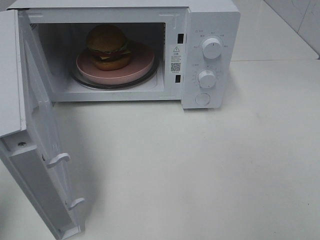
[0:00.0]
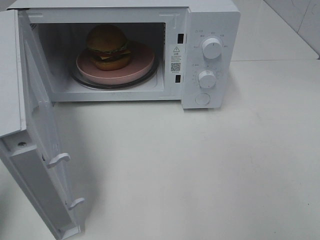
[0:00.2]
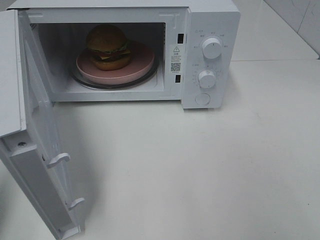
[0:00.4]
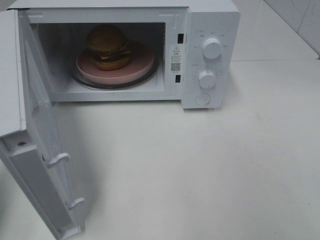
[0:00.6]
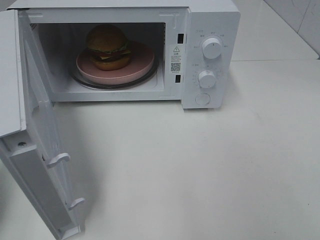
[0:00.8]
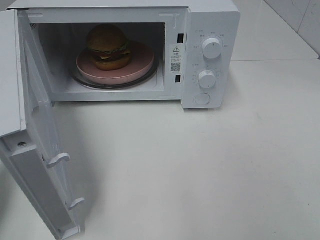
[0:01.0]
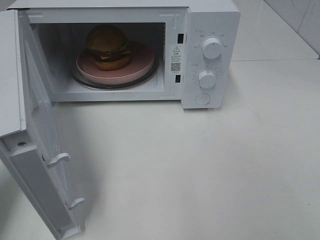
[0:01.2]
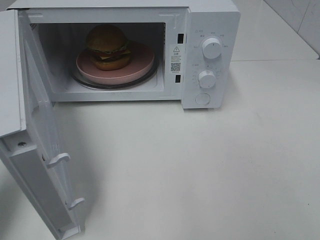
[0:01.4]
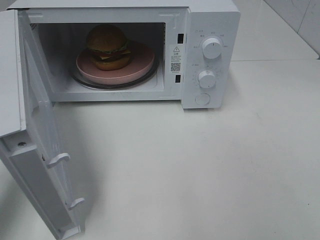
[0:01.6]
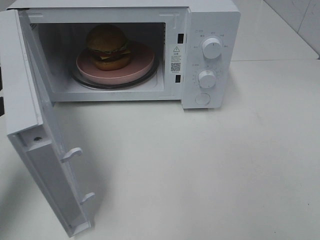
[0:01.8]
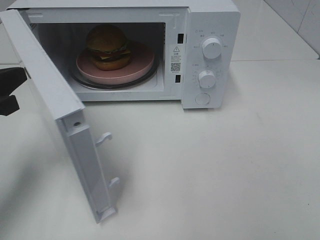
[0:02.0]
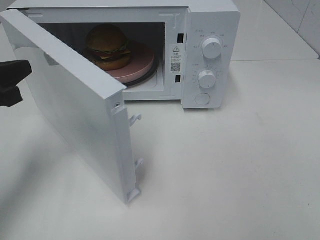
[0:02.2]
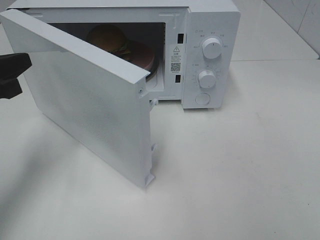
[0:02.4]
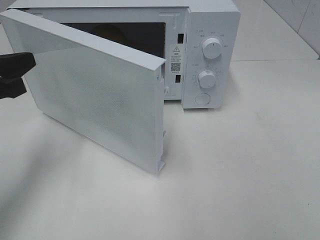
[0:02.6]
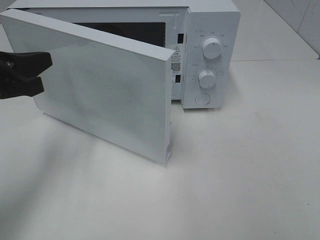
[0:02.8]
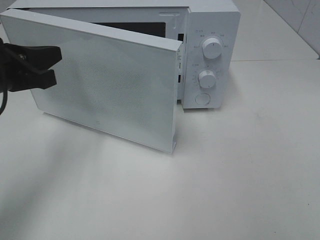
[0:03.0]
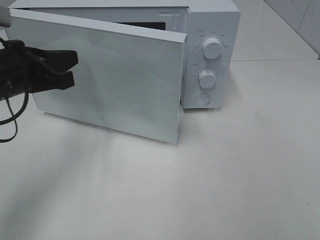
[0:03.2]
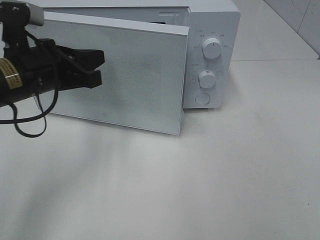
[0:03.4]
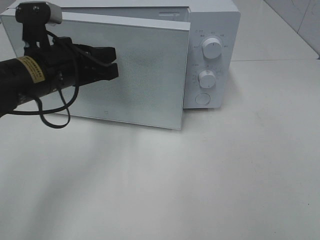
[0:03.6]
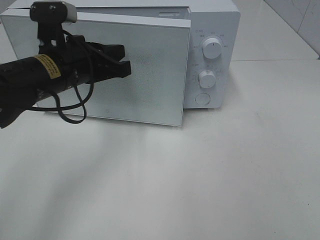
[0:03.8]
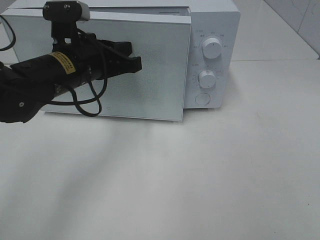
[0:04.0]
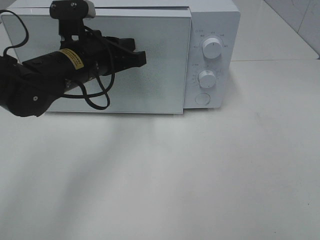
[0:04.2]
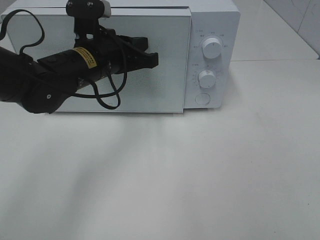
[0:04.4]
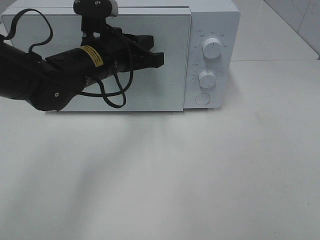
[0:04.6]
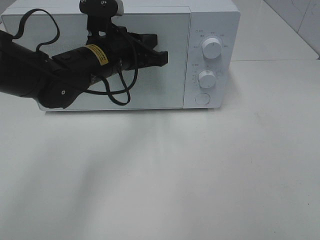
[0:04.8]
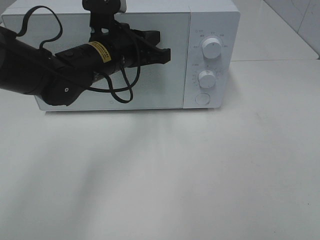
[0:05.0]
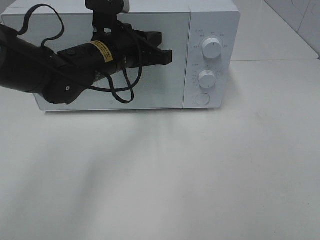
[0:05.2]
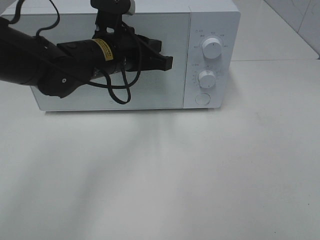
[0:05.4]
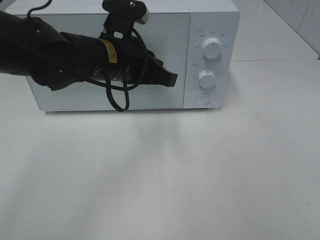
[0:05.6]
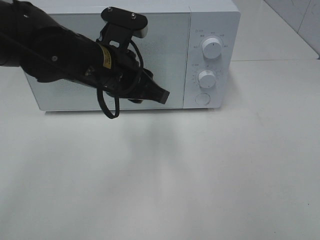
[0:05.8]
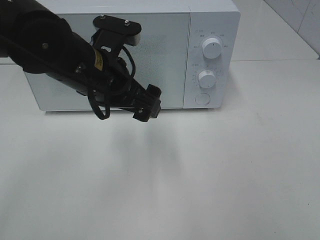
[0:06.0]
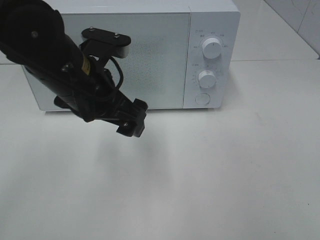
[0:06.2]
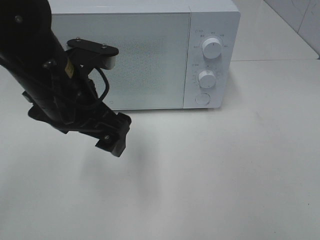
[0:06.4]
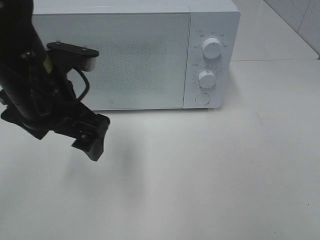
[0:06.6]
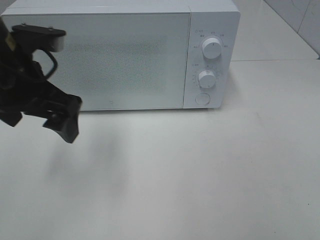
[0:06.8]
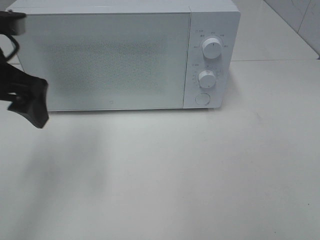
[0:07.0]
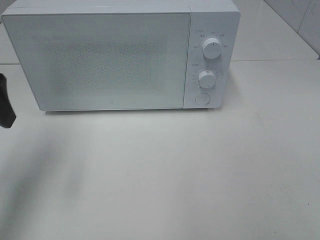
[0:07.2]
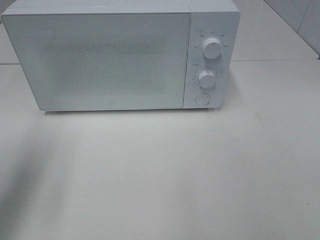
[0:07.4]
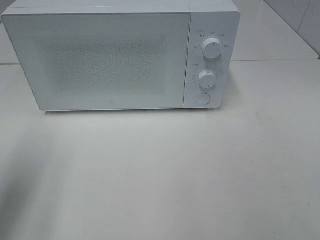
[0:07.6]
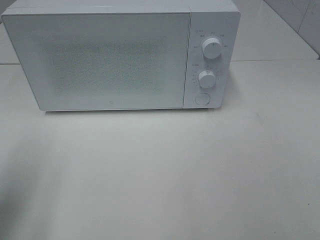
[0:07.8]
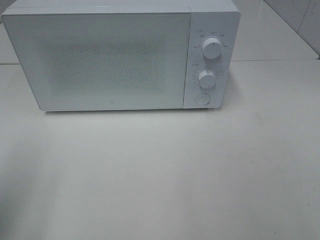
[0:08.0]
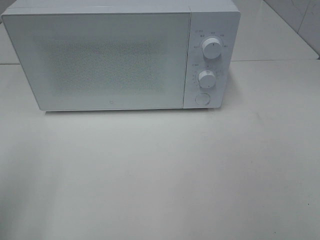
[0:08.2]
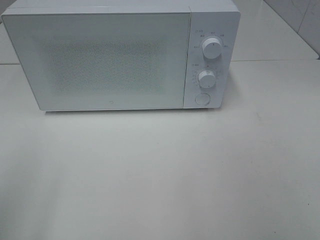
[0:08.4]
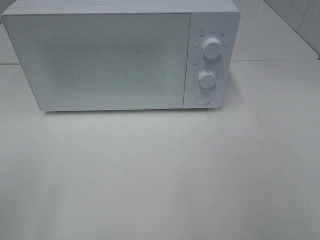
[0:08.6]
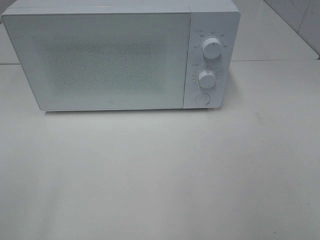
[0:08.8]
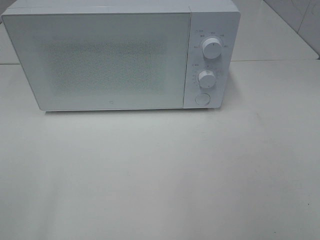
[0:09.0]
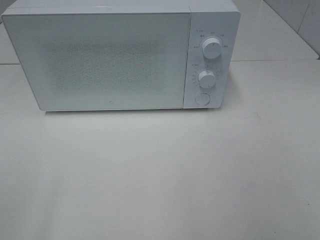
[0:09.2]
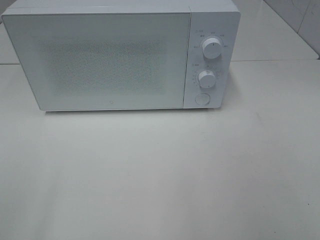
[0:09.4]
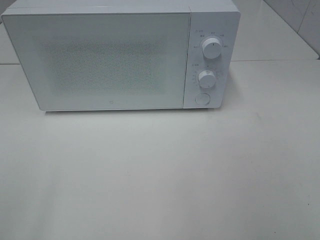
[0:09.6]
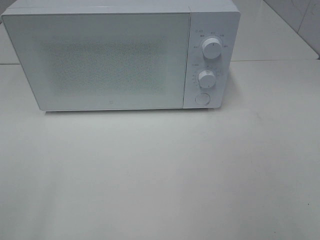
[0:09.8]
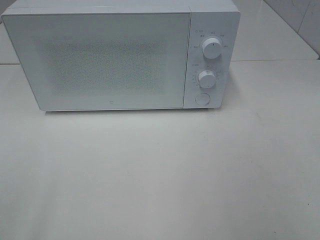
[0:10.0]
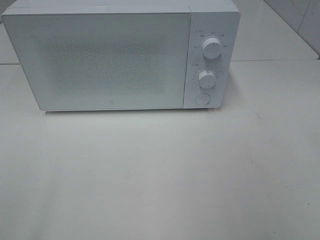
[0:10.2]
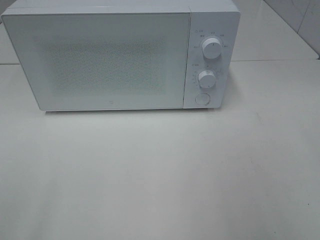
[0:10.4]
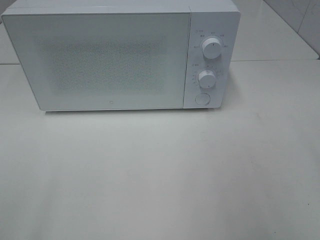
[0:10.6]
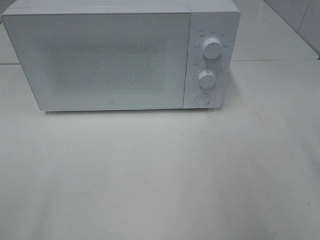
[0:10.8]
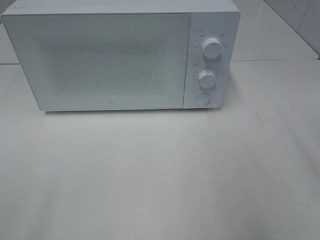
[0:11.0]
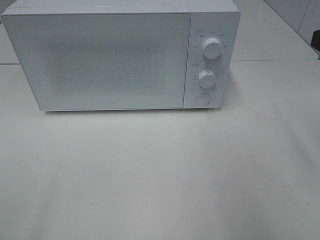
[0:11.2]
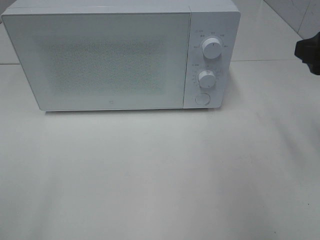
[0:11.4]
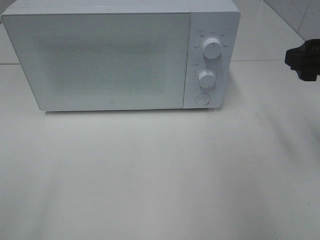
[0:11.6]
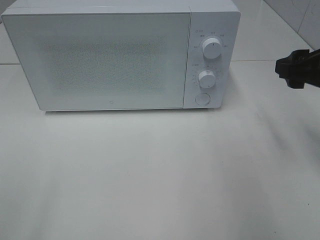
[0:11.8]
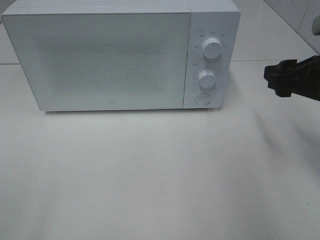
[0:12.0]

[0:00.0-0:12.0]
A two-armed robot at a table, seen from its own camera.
Task of the whole recording: Heat the burger.
Step, 0:00.0 to 0:05.6: Left hand: close the microwave door.
0:00.0 to 0:01.6: The left gripper moves forward and downward, about 15 cm.
0:01.6 to 0:03.0: The left gripper is displaced to the right and forward by approximately 10 cm.
0:03.0 to 0:04.4: The left gripper travels to the right and forward by about 15 cm.
0:04.4 to 0:06.0: The left gripper travels backward by roughly 5 cm, and opens up.
0:06.0 to 0:07.6: The left gripper is displaced to the left and backward by roughly 25 cm.
0:07.6 to 0:09.0: The left gripper heads backward, covering about 15 cm.
0:10.4 to 0:12.0: The right gripper moves forward and downward, about 20 cm.

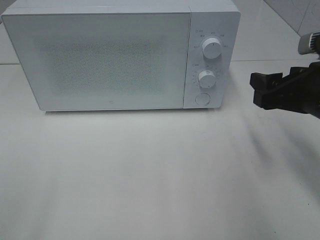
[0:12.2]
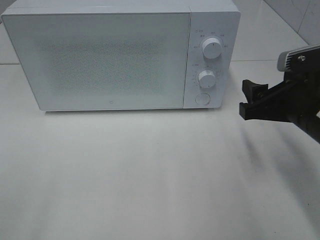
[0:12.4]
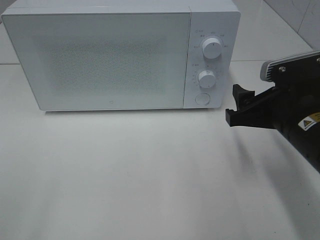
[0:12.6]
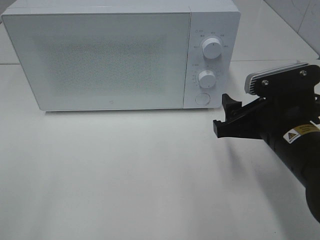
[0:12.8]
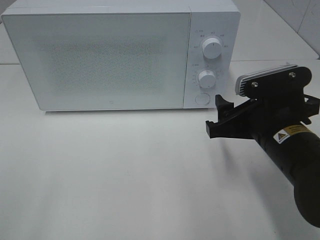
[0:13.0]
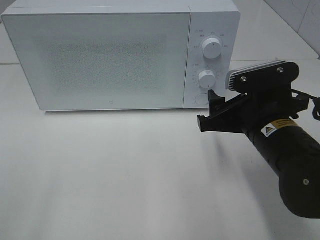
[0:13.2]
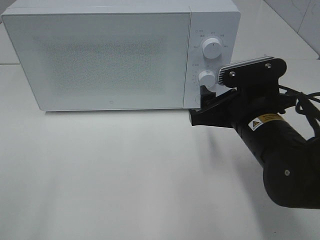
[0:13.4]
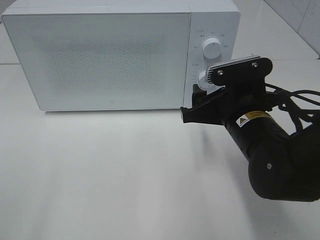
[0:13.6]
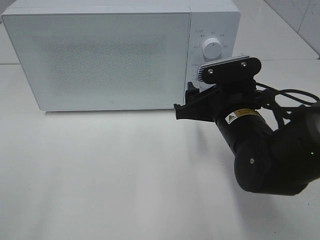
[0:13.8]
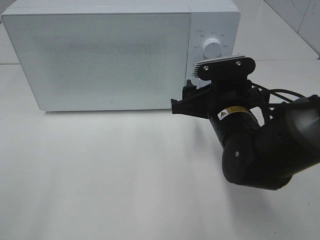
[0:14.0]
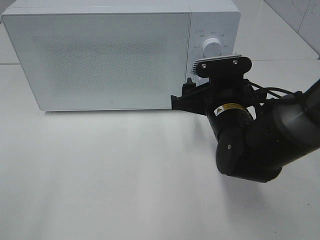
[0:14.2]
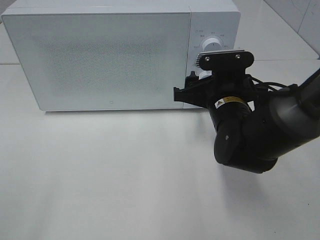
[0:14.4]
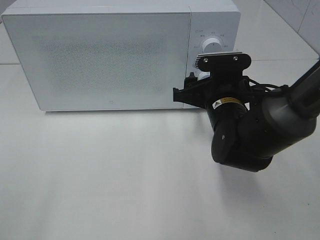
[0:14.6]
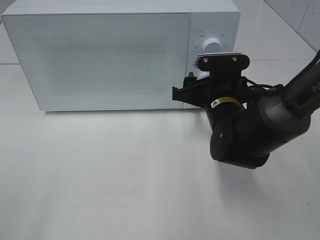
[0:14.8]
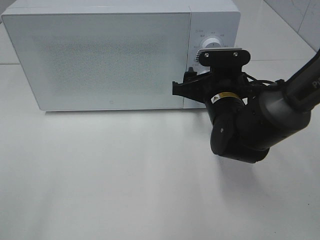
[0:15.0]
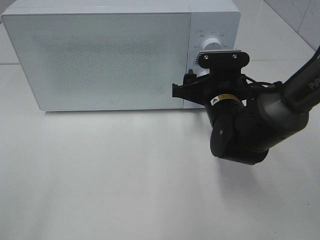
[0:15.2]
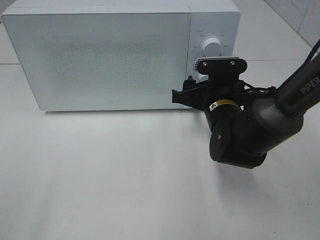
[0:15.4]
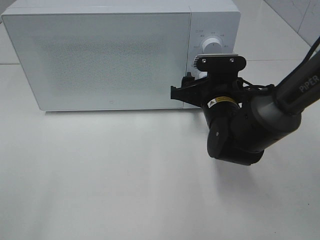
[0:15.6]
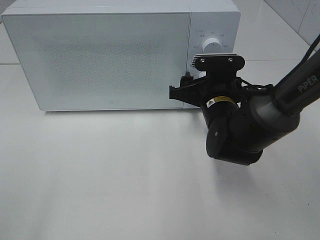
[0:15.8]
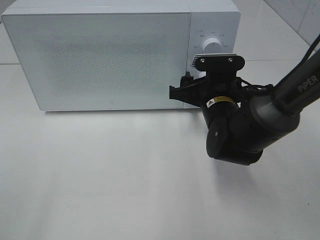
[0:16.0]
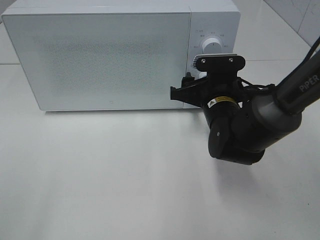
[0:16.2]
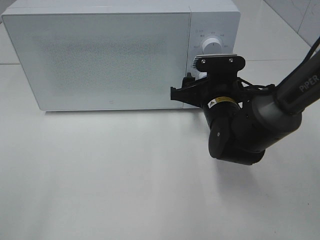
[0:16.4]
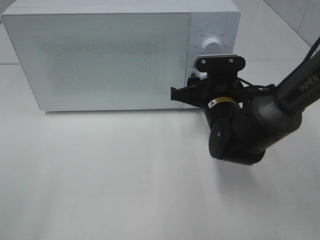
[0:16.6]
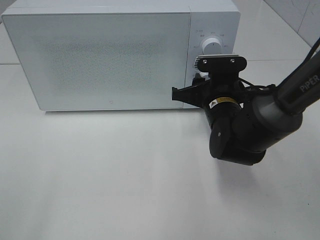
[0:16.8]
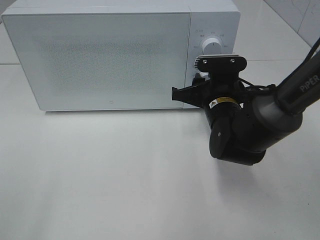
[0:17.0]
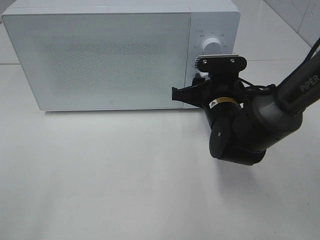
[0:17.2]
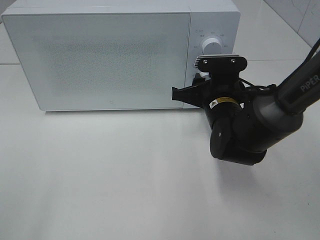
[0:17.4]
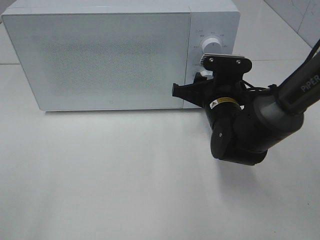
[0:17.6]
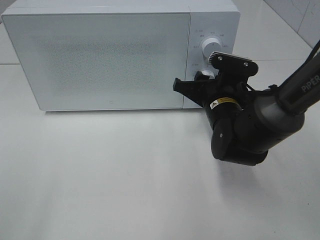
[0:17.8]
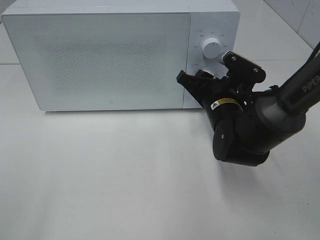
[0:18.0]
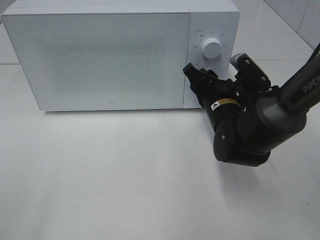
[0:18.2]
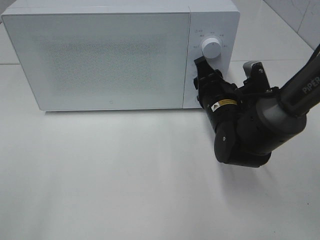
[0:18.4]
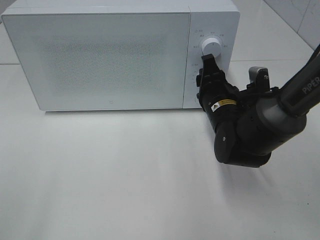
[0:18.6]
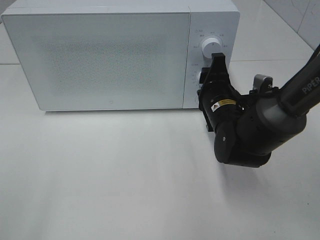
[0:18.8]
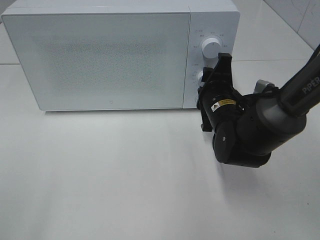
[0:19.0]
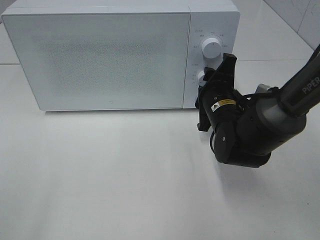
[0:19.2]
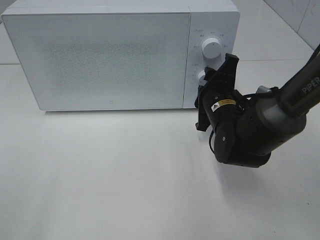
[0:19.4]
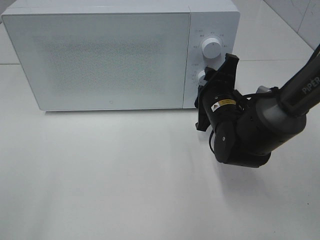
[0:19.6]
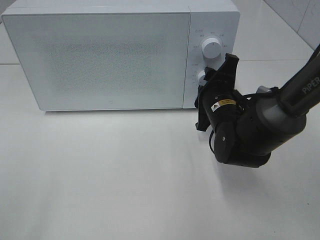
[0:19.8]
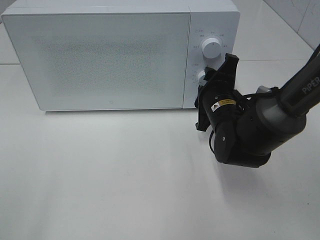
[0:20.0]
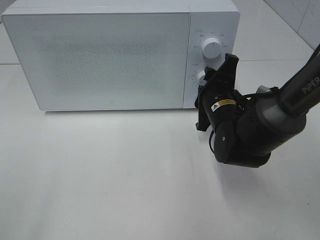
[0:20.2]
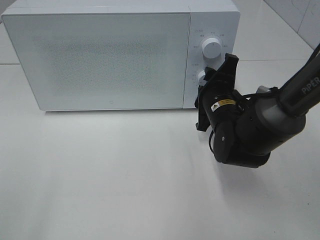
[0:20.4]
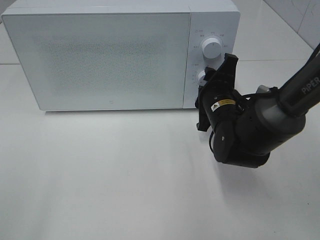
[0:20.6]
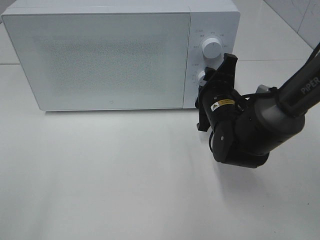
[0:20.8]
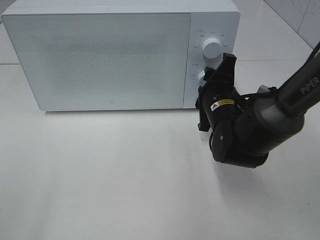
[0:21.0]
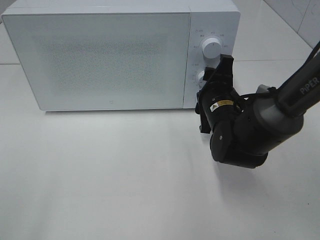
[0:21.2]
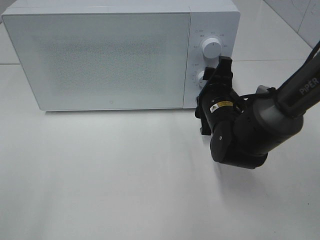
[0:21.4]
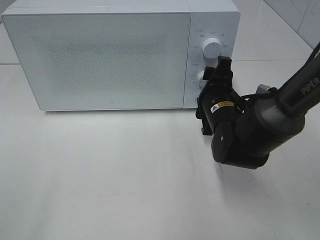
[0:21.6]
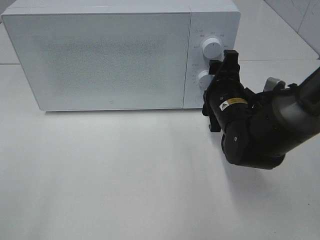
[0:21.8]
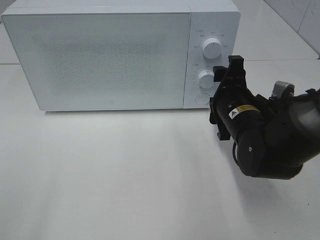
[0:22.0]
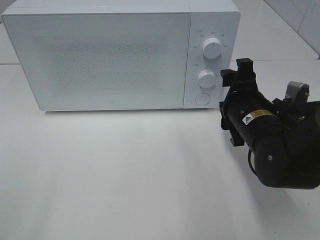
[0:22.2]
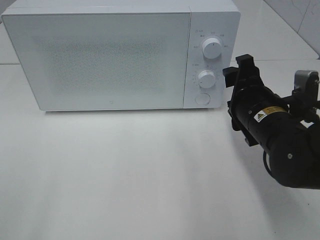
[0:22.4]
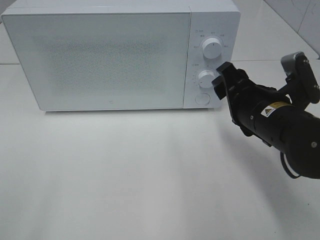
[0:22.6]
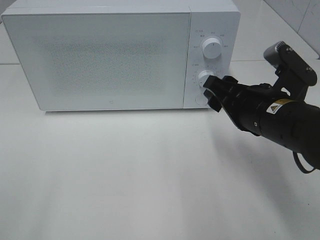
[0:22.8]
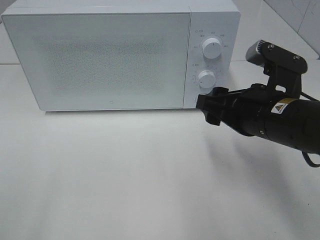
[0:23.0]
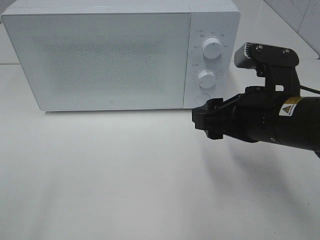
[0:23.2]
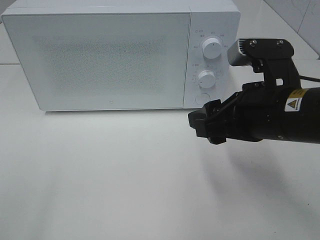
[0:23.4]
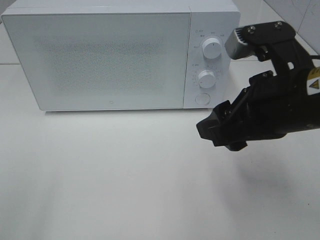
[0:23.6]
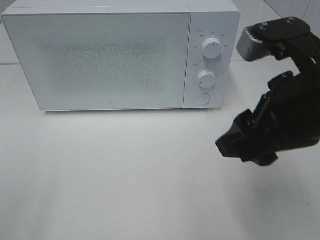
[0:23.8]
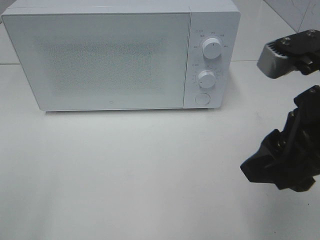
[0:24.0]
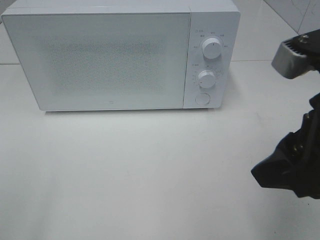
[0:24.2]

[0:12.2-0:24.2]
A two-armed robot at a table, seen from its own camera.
Task of the whole recording: Heat the burger.
Step, 0:12.2 to 0:21.6: Right hand: twist timer button.
0:12.2 to 0:13.8: The right gripper heads to the left and downward, covering some 15 cm.
0:13.8 to 0:15.2: The right gripper shifts about 5 cm forward.
0:15.2 to 0:16.6: The two grippers keep their place.
0:19.8 to 0:21.2: There are only small adjustments of the grippers.
0:21.2 to 0:22.6: The right gripper is displaced backward and upward by roughly 10 cm.
0:22.6 to 0:24.2: The right gripper goes approximately 15 cm upward and backward.
